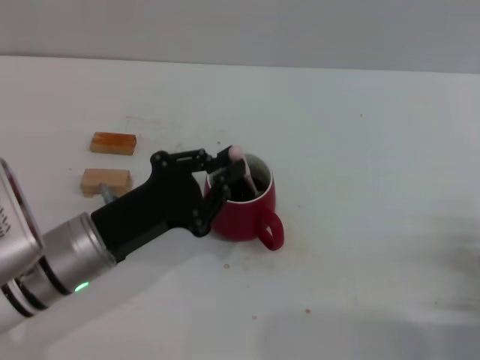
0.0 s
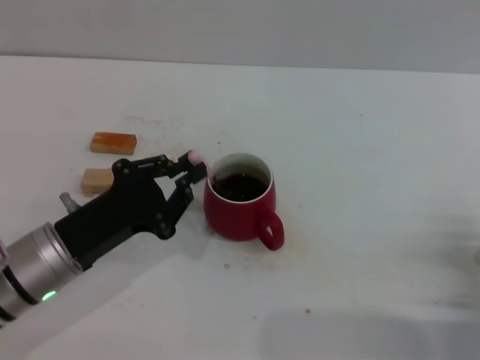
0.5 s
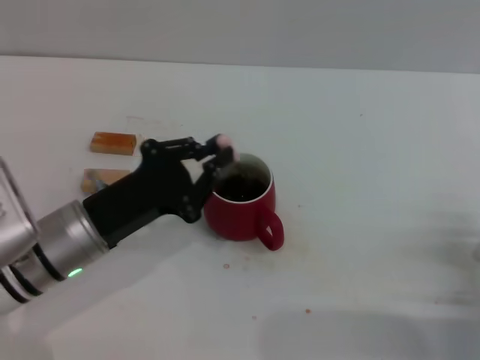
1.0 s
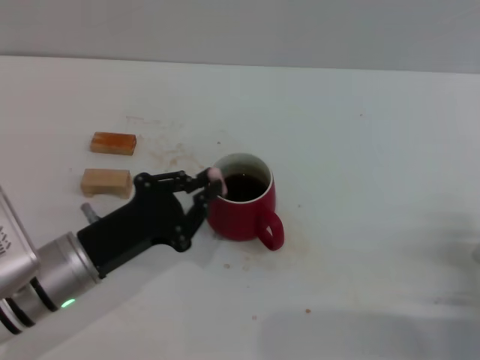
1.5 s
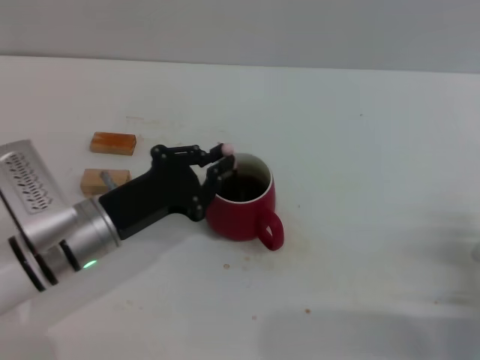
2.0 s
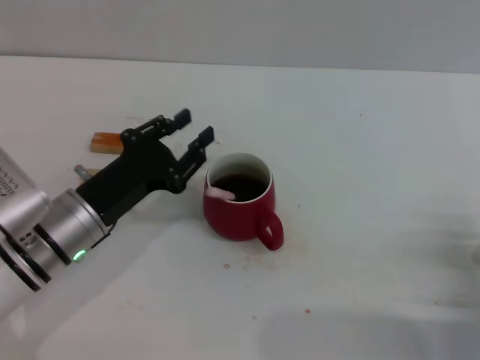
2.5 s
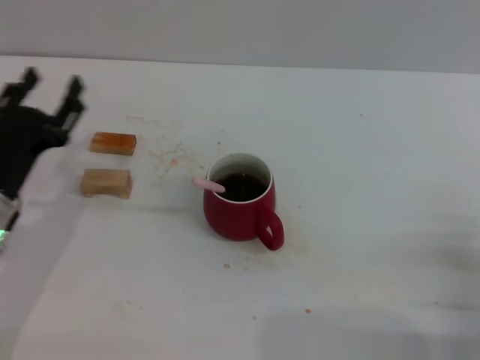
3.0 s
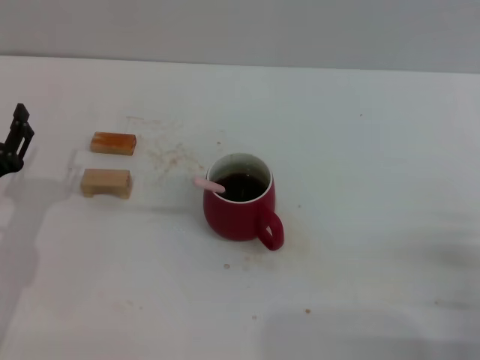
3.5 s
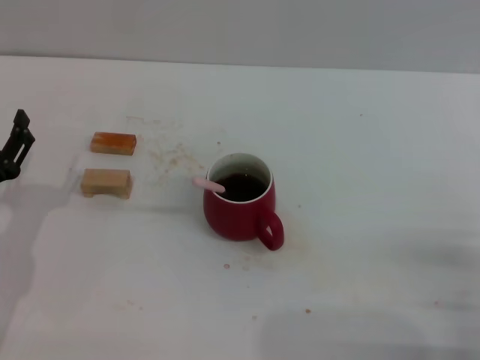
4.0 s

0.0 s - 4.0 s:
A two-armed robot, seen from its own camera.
Task of the whole recording: Move the red cup to the center, lift the pink spoon, stir it three times in the cup, and put the spoon into the cup.
Step, 0.0 s - 2.5 s: Stir the coffee in the cup with the left gripper.
0.0 s - 2.0 s: The grippers stay close to where they were, moving slightly.
2.0 s - 4.0 s: The left gripper moves to the left, approximately 10 cm, and opens.
